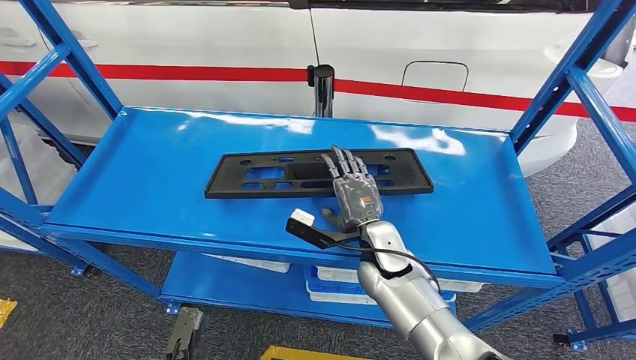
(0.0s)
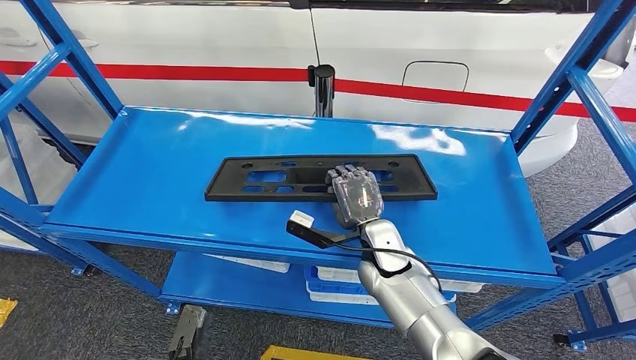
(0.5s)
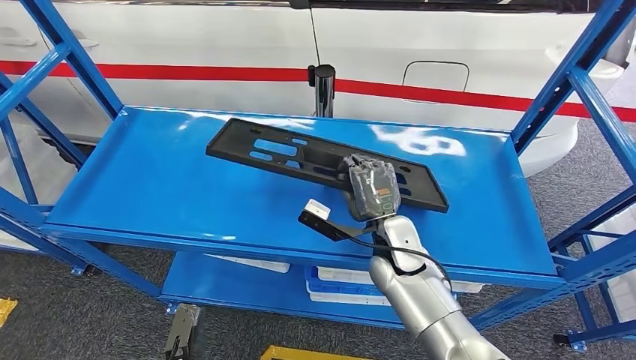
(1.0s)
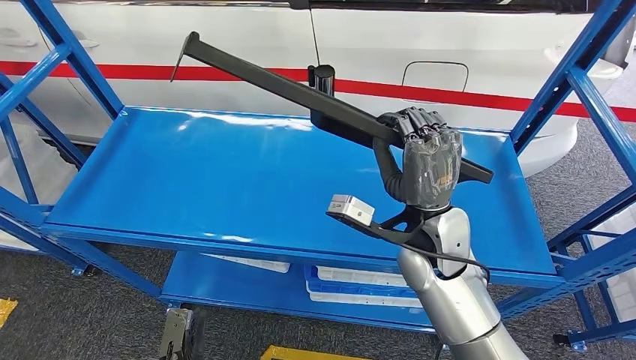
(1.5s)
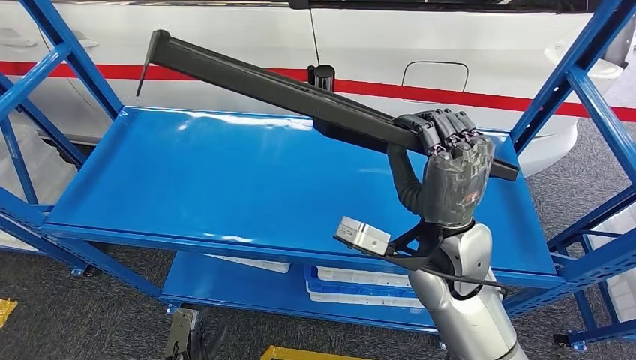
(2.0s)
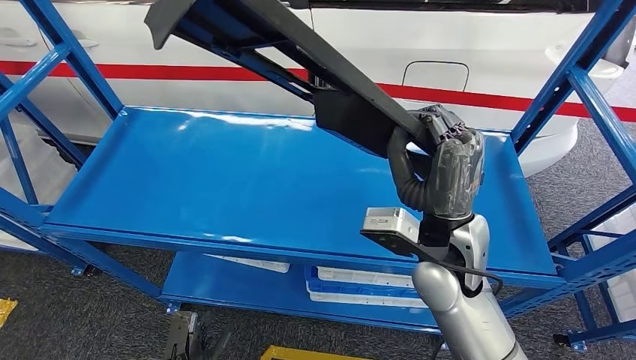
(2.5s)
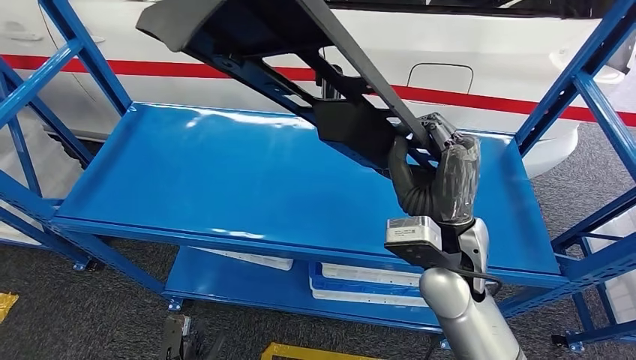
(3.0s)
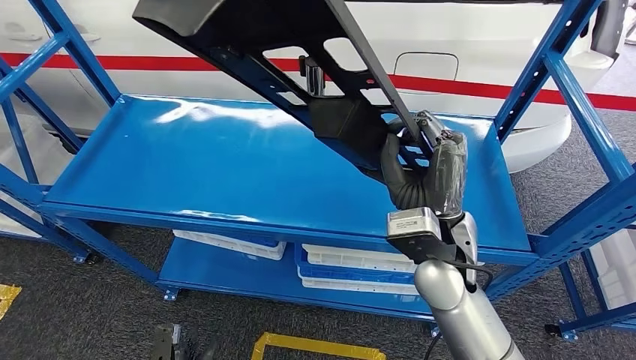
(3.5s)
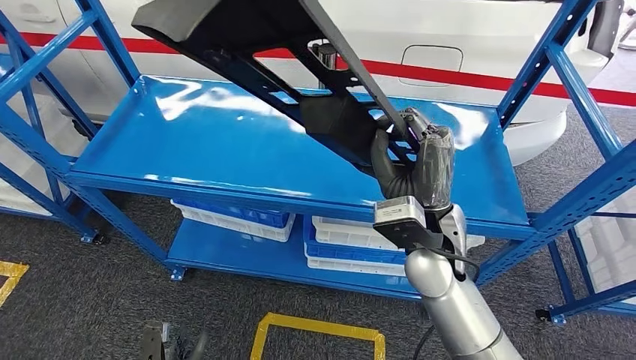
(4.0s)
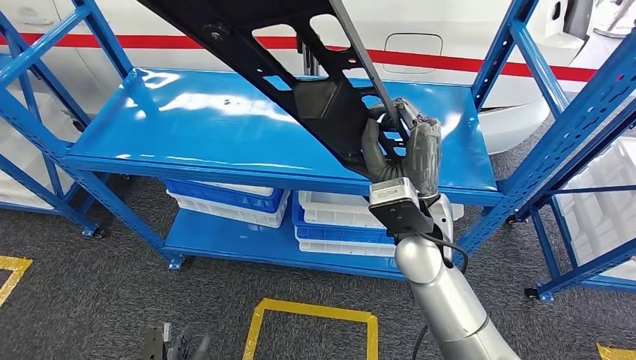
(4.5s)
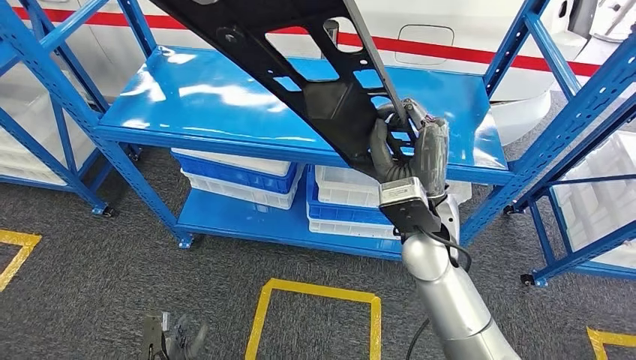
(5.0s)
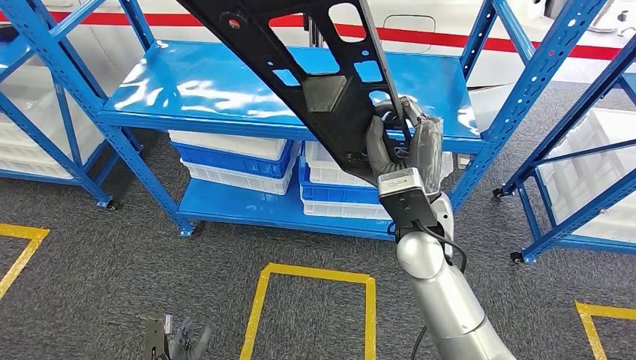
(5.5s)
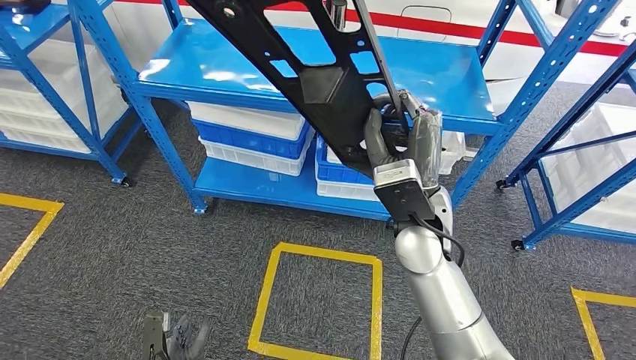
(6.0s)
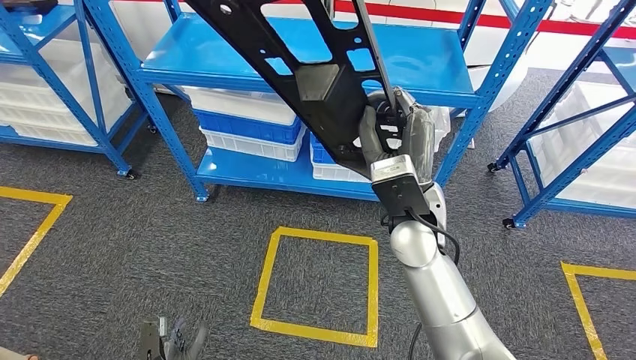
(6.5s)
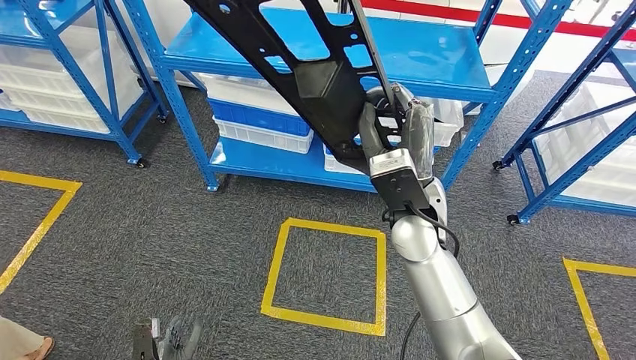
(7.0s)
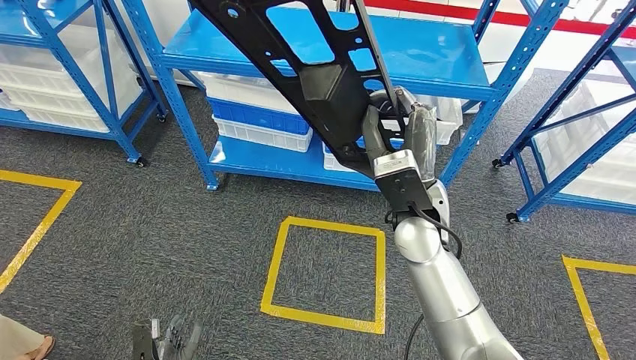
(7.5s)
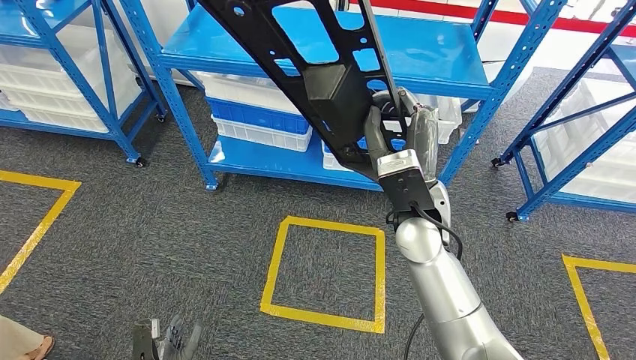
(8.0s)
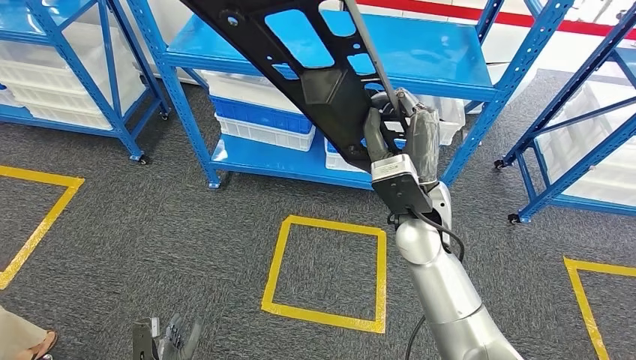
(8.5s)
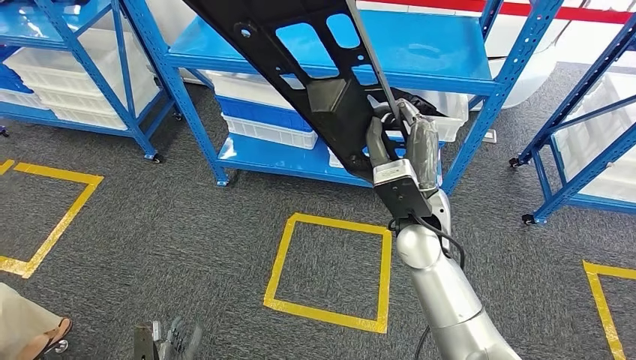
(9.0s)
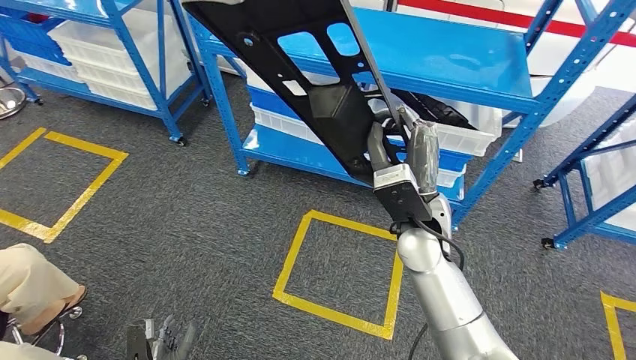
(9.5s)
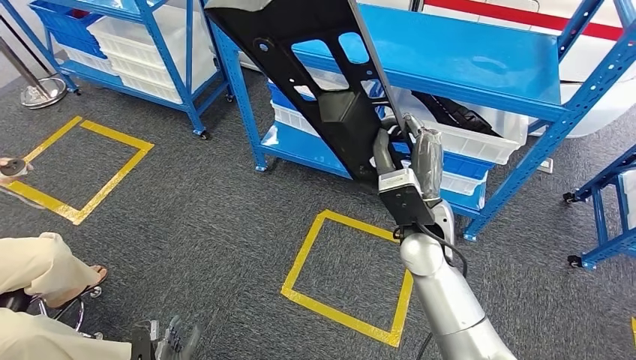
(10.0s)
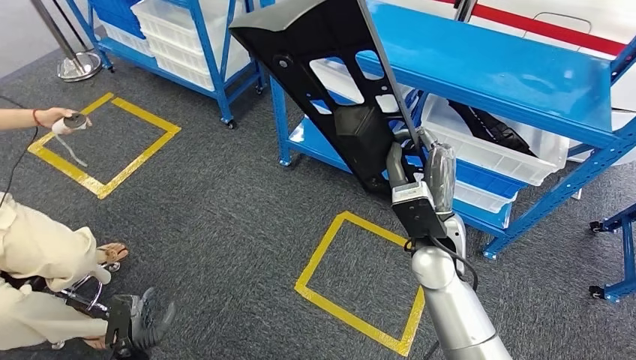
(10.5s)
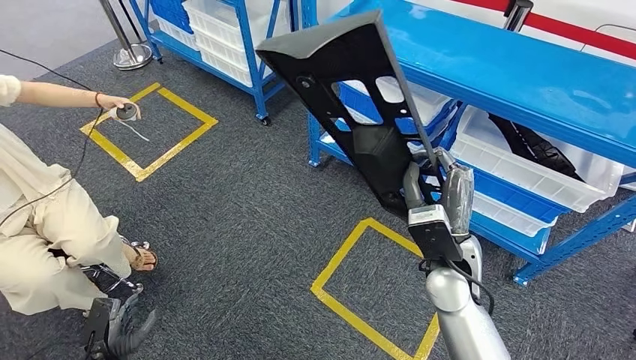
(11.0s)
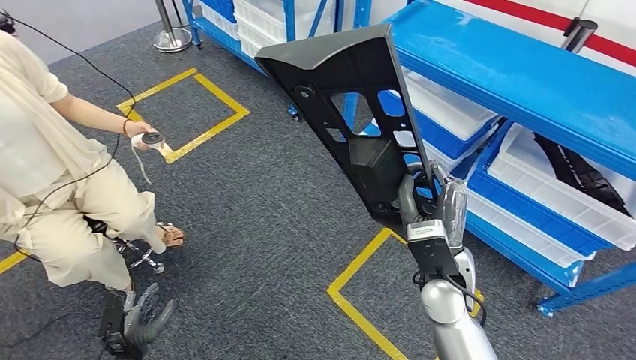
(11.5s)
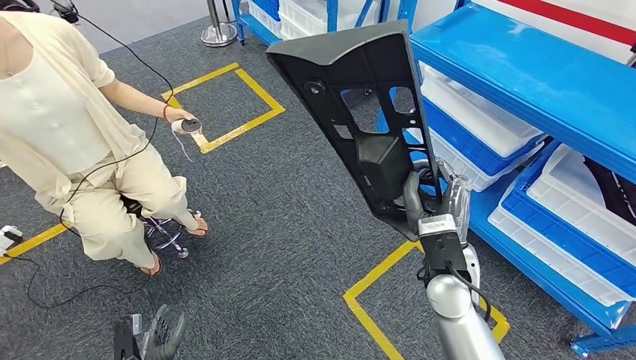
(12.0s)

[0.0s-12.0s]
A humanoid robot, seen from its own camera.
Step, 0.0s to 4.5s: Pick up the large material from the shelf.
0.0s to 2.0s: The right hand is displaced upward and backward by some 15 cm.

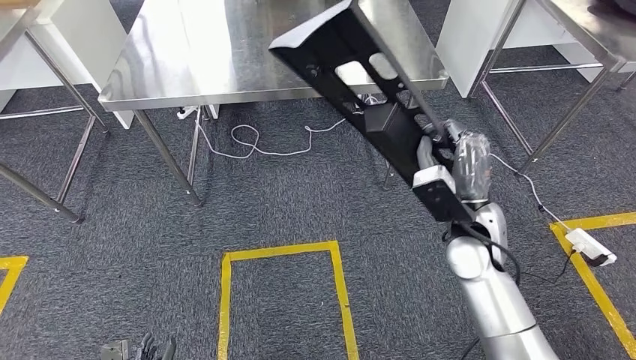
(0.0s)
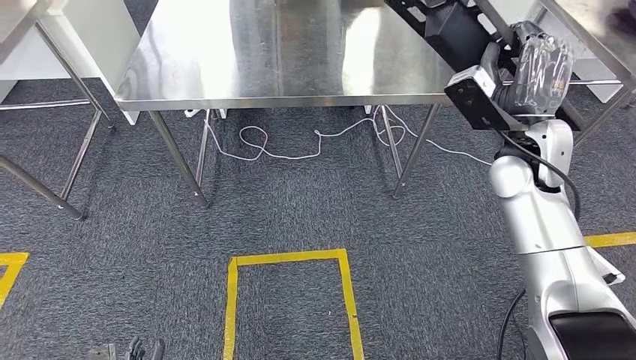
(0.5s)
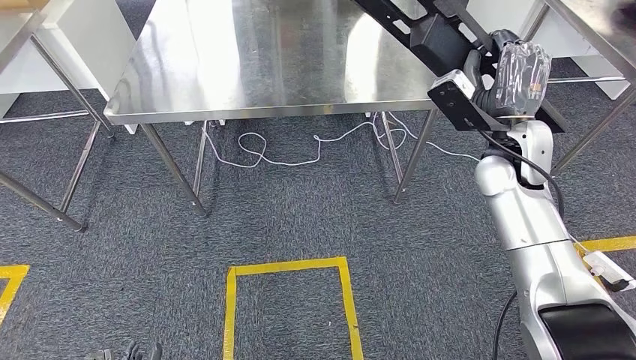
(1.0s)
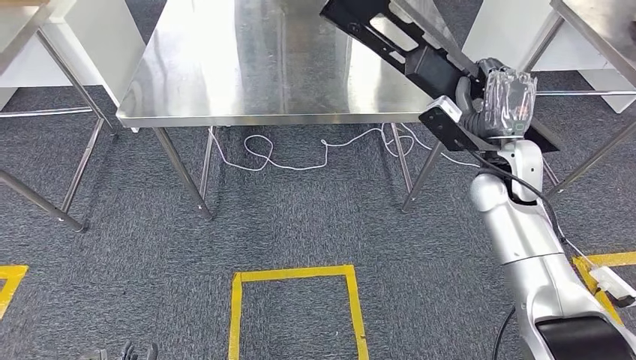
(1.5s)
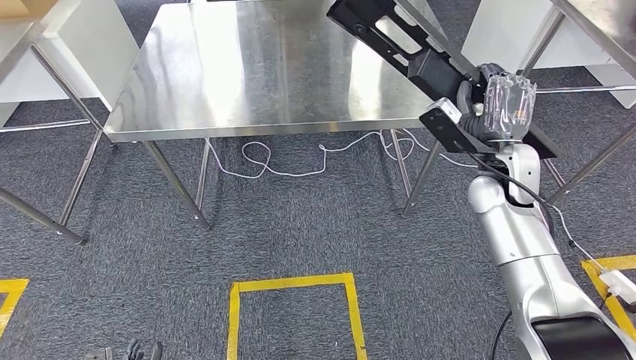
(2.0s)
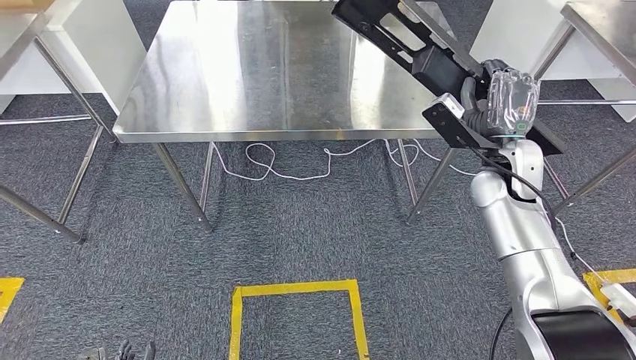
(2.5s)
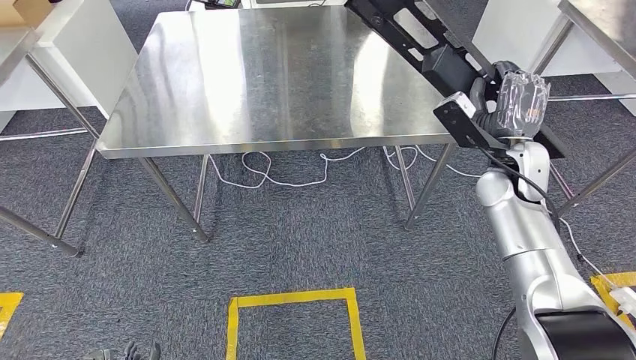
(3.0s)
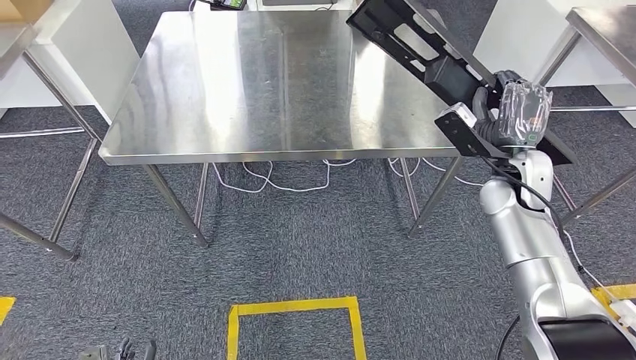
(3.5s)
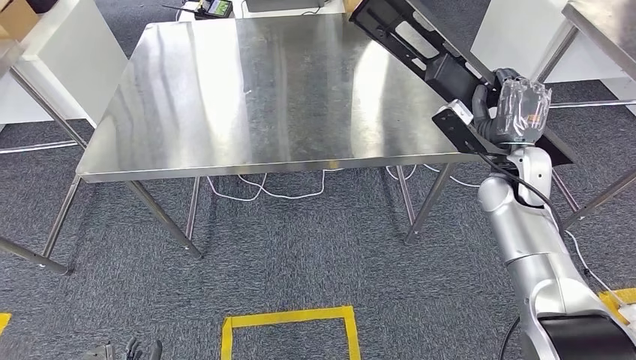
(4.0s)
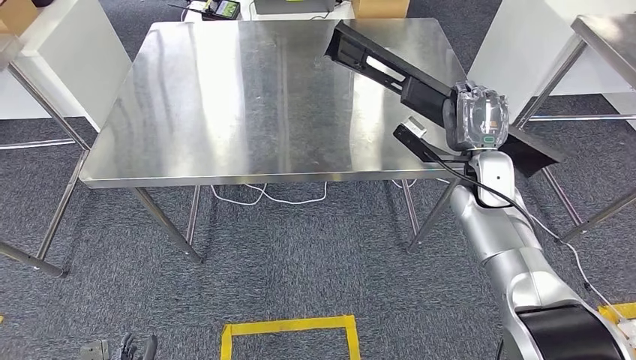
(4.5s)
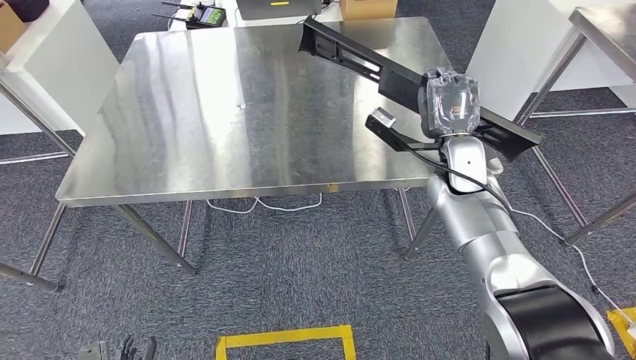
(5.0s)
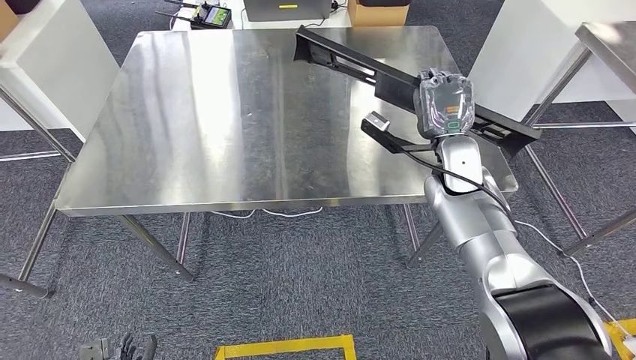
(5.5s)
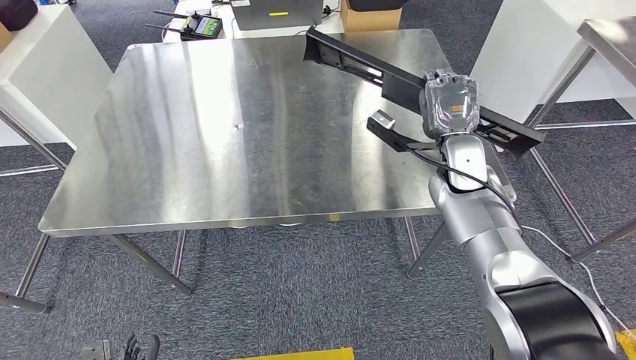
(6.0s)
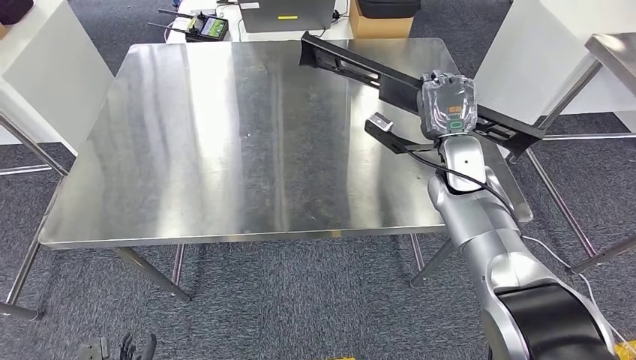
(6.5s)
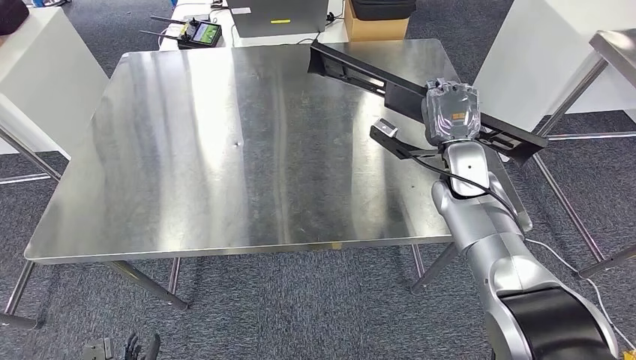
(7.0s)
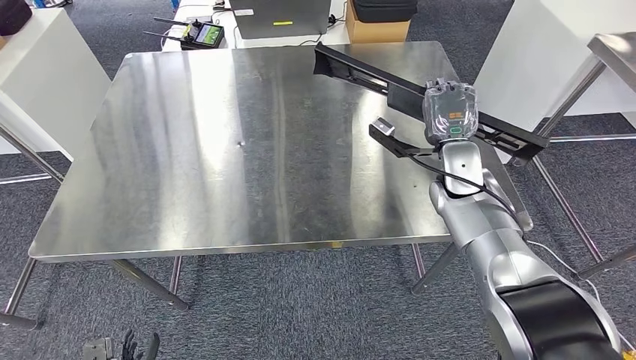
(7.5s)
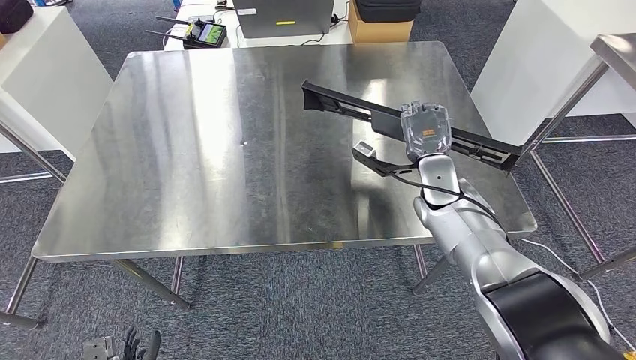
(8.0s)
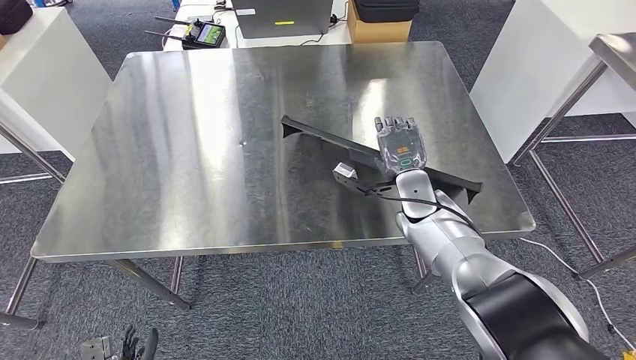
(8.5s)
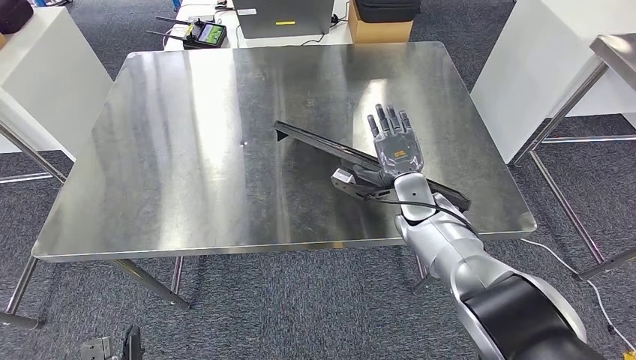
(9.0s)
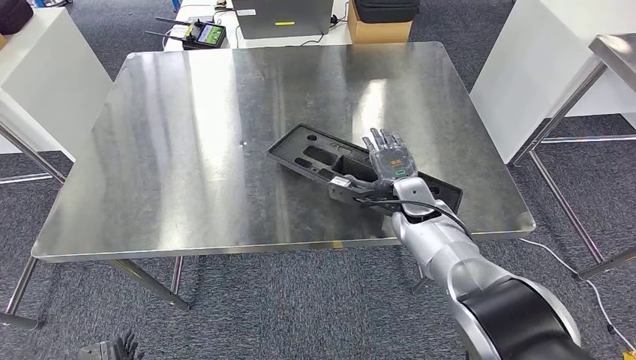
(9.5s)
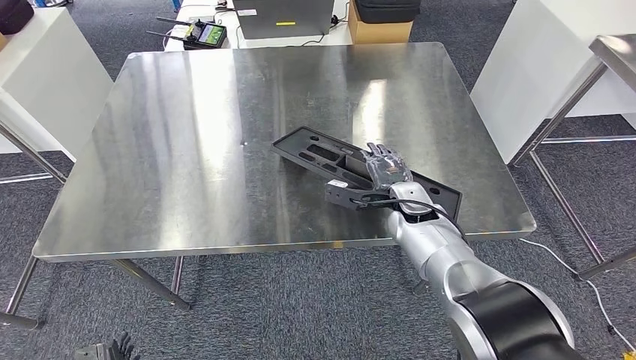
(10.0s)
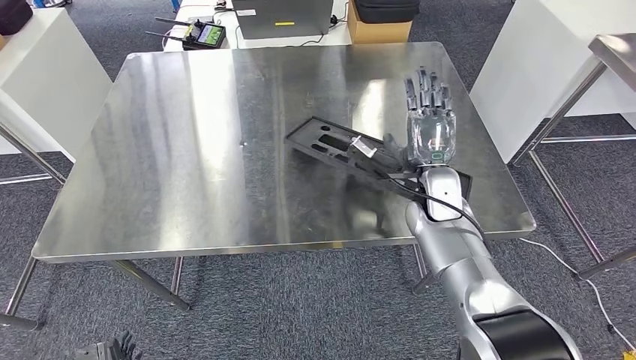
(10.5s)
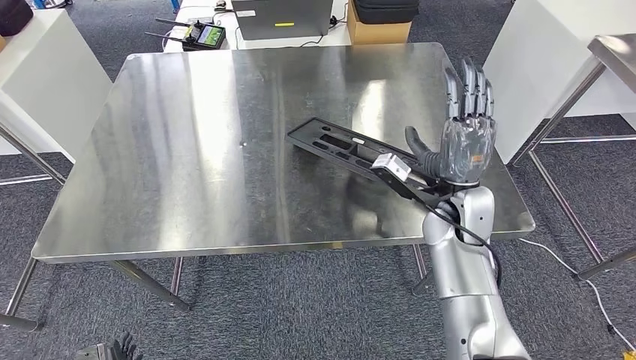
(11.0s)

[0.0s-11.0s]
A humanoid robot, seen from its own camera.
7.5s to 9.0s: The right hand heads downward and to the left, covering approximately 10 cm.
9.0s to 11.0s: The right hand heads backward and upward, covering approximately 10 cm.
